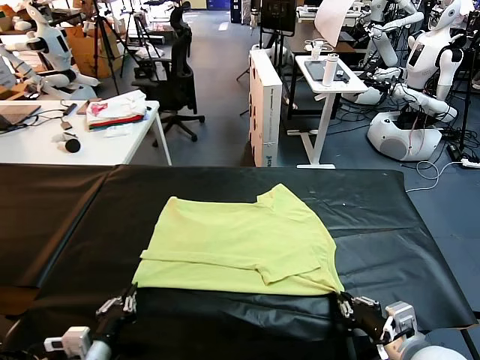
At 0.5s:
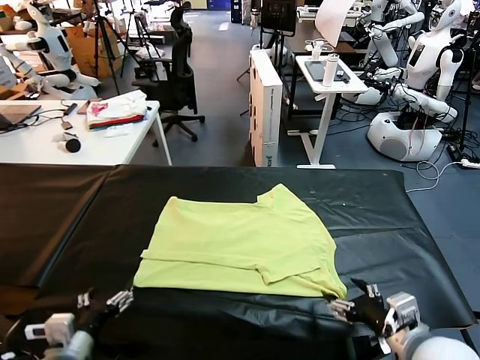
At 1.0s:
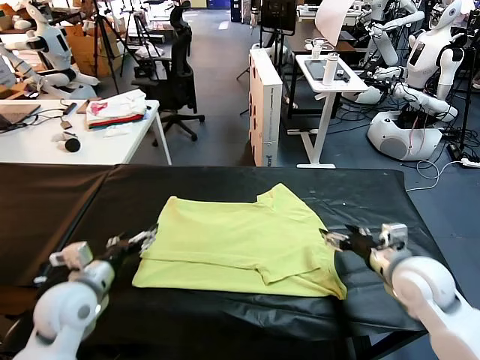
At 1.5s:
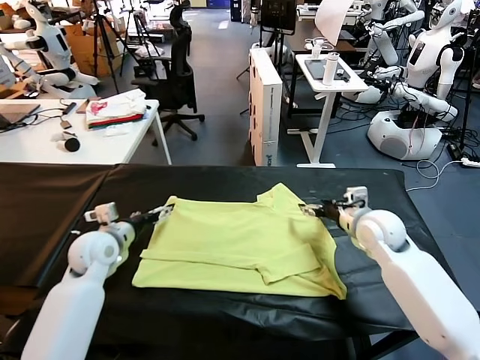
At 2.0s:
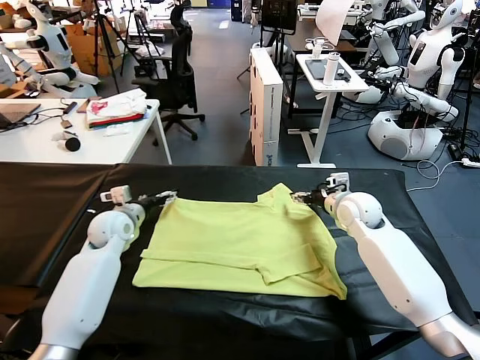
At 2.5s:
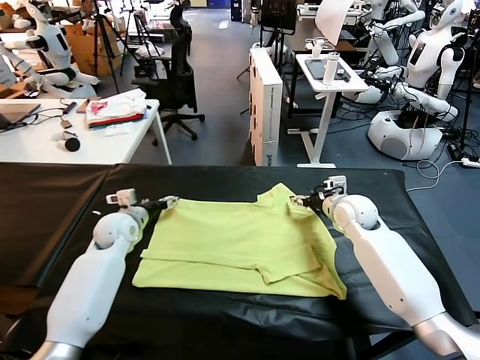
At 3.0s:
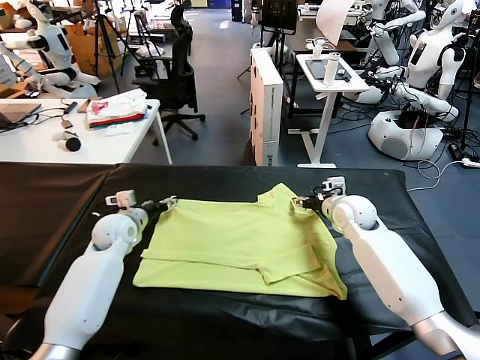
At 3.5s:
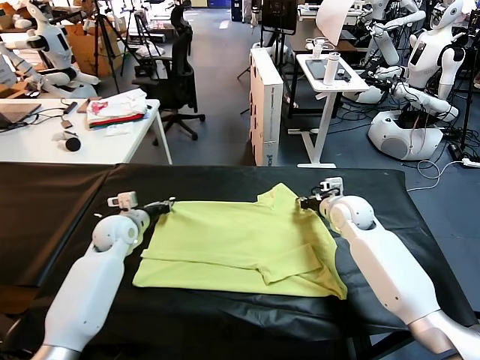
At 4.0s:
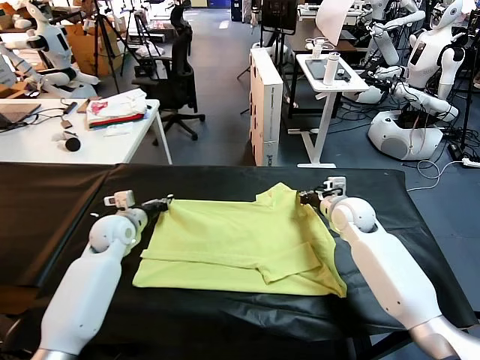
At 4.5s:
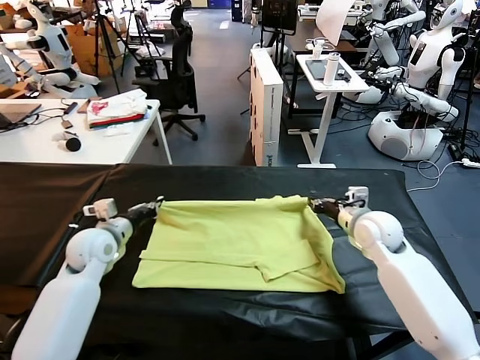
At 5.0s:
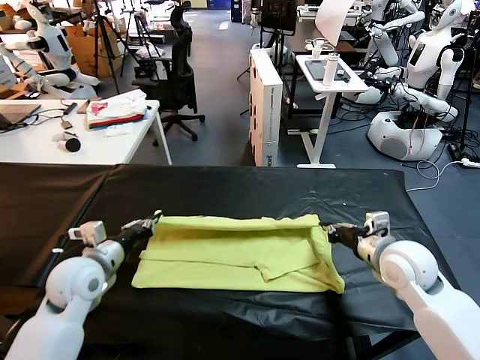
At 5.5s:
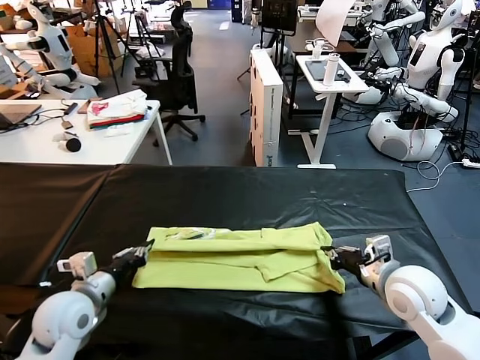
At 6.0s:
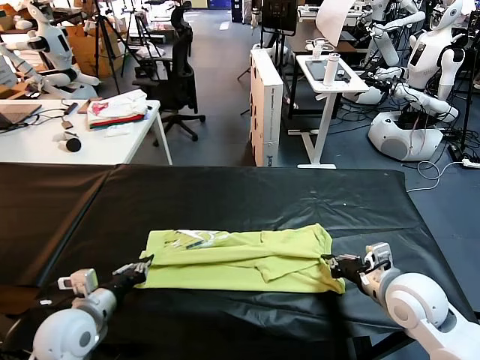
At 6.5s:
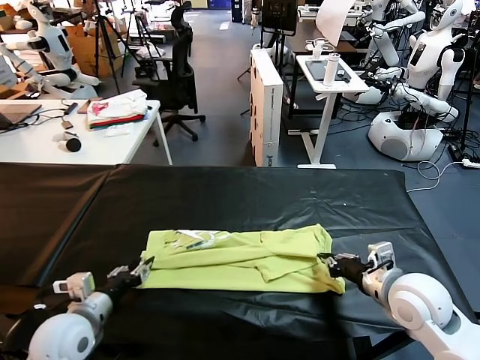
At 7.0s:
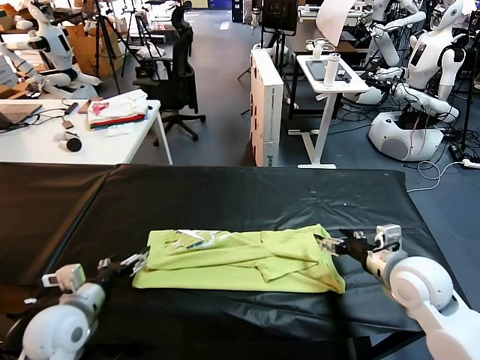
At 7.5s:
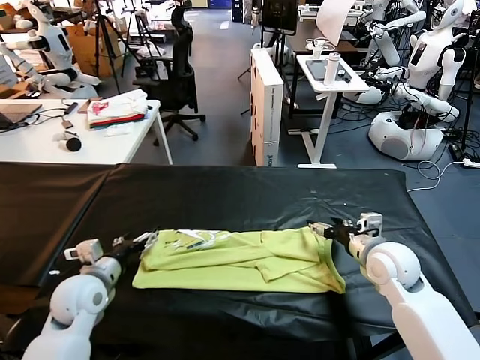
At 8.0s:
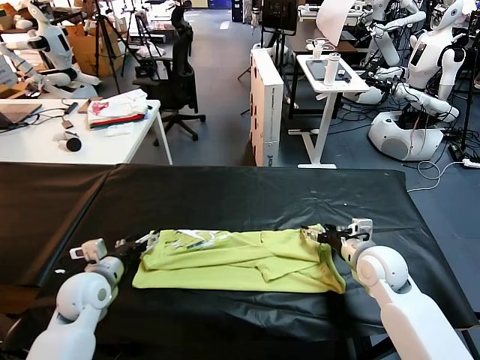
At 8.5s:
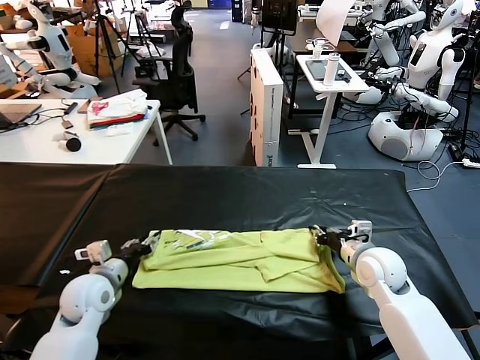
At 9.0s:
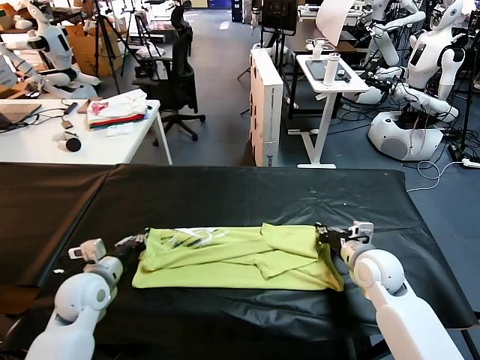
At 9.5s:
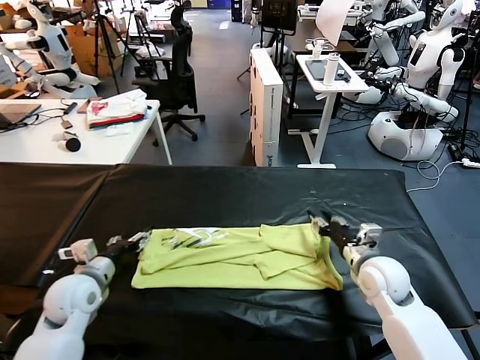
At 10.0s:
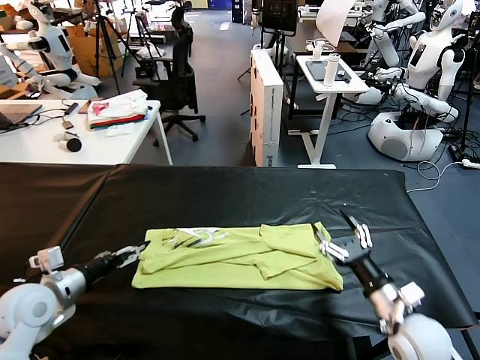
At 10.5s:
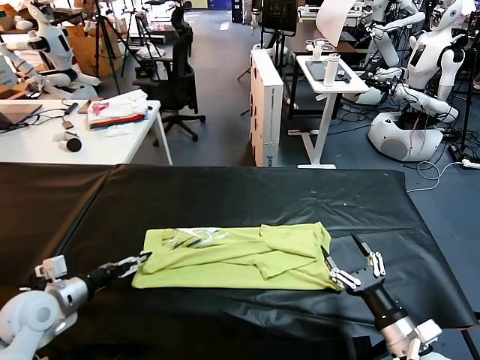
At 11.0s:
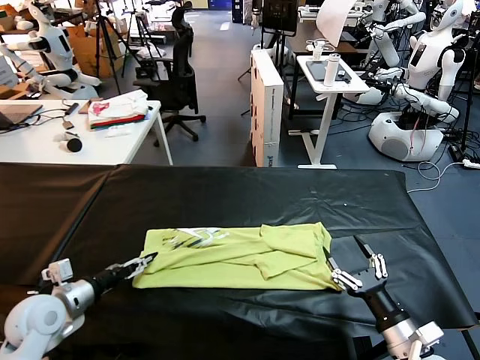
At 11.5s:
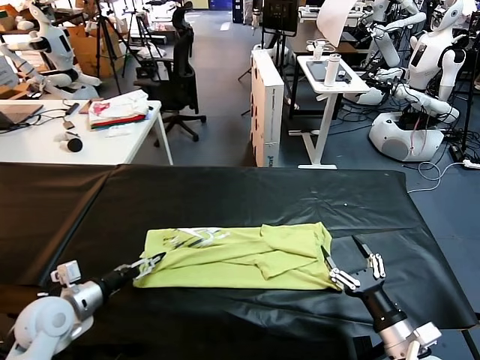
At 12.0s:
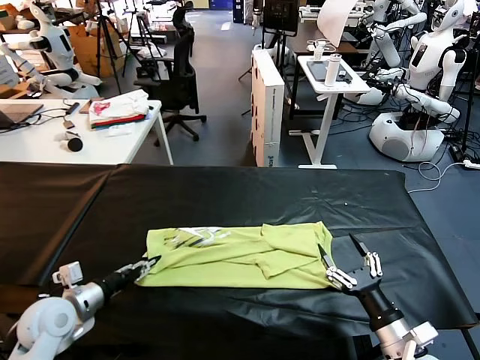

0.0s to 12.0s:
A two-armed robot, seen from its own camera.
Task of the whole recording: fold and organize the clothes.
Step, 0.5s to 3.5s: use both grippers simultaneously to clamp the upper edge of the clothing fabric.
Step, 4.0s to 6.5s: use both grippers to drag the upper edge of the fabric backward and fold it over the lower edge.
Step, 7.0s to 12.0s: use the left gripper to clamp the left edge of the fabric.
0.0s to 2.0s: Both grippers move forward, about 35 cm. The left gripper opens.
2.0s to 4.0s: The right gripper closes up; the left gripper closes its fingers.
4.0s to 6.0s: Both grippers travel together backward, approximately 20 cm.
6.0s to 8.0s: The right gripper is displaced forward and downward by about 10 cm, and opens up, while the left gripper is displaced forward by approximately 10 cm, and opens up.
8.0s to 10.0s: The right gripper shifts roughly 15 cm backward, and closes and opens again, while the left gripper moves upward, to the left and backward, roughly 10 cm, and closes, then reopens.
10.0s to 12.0s: The left gripper shifts about 5 cm downward, and closes its fingers.

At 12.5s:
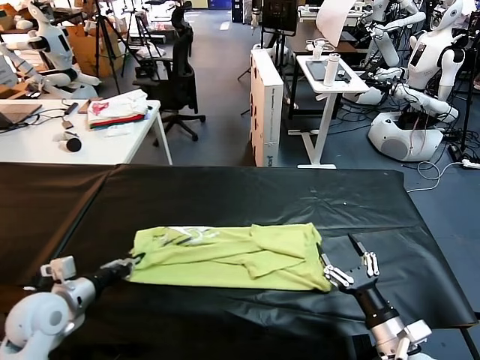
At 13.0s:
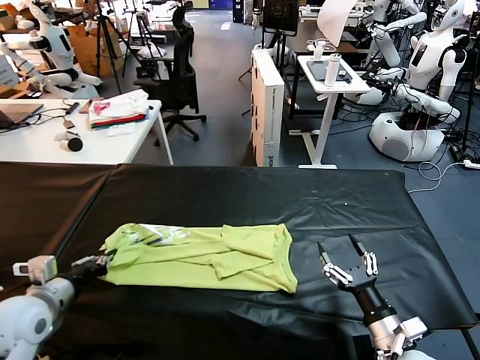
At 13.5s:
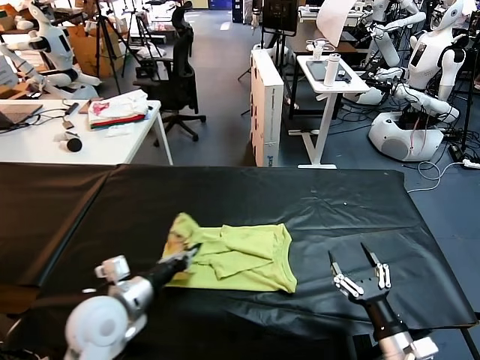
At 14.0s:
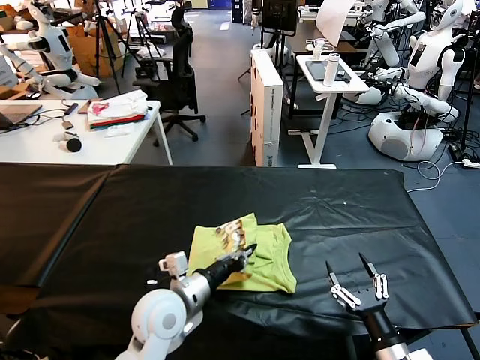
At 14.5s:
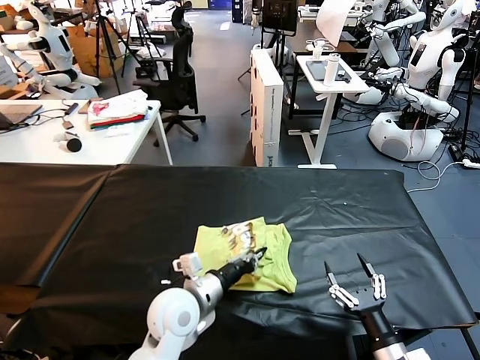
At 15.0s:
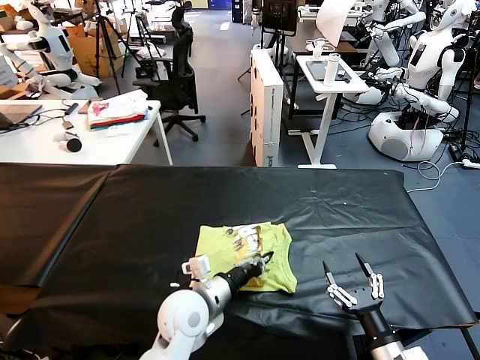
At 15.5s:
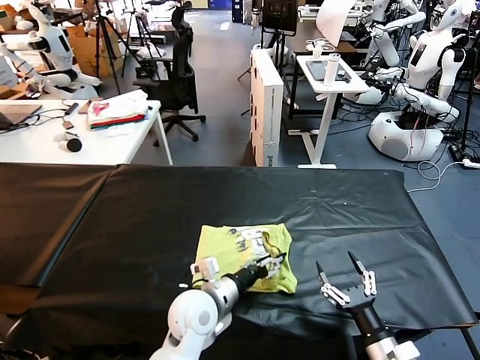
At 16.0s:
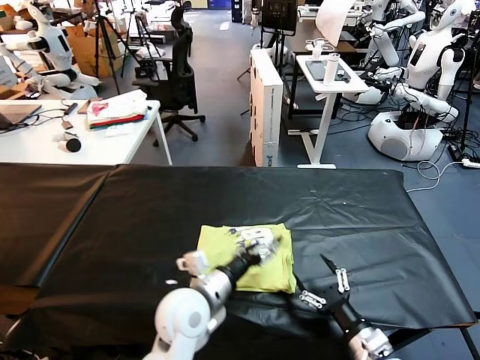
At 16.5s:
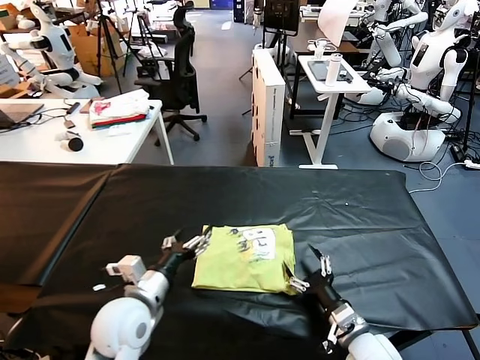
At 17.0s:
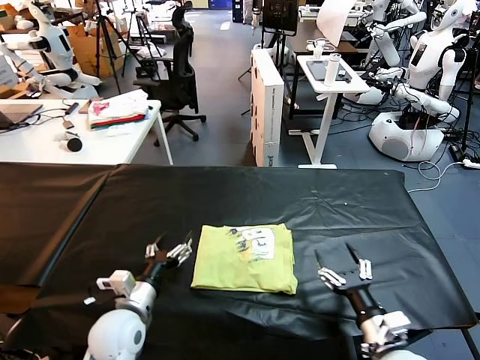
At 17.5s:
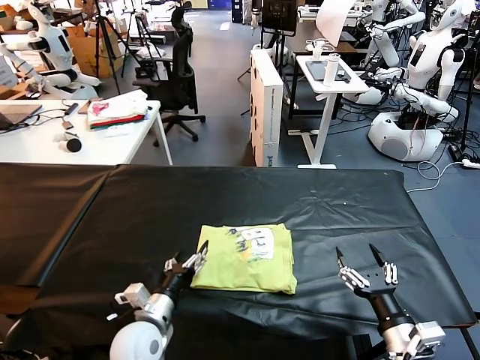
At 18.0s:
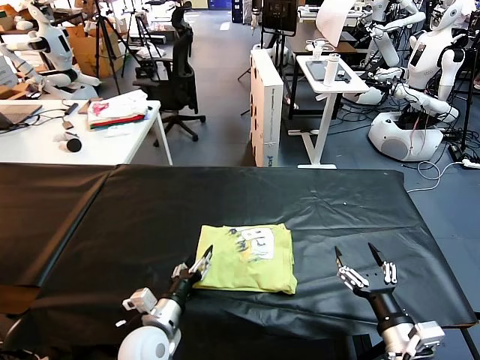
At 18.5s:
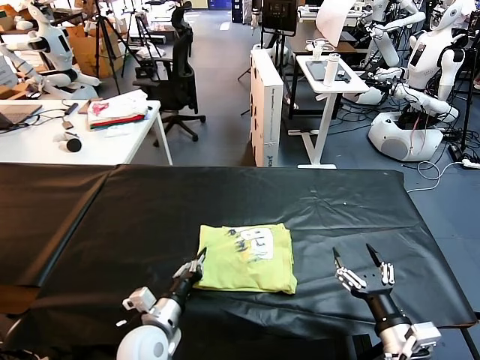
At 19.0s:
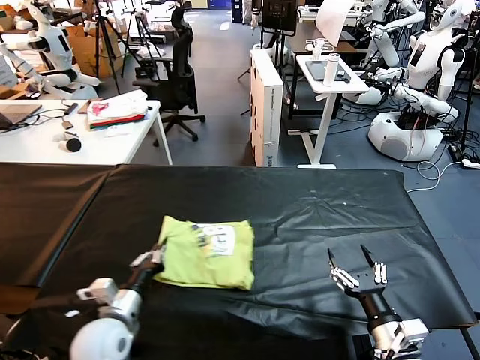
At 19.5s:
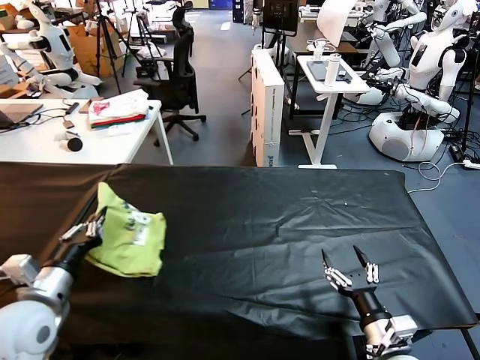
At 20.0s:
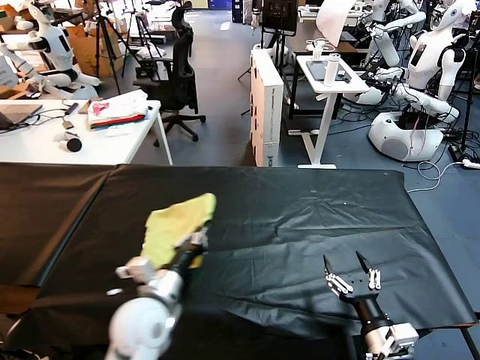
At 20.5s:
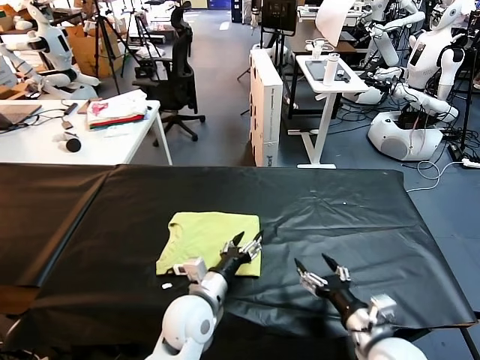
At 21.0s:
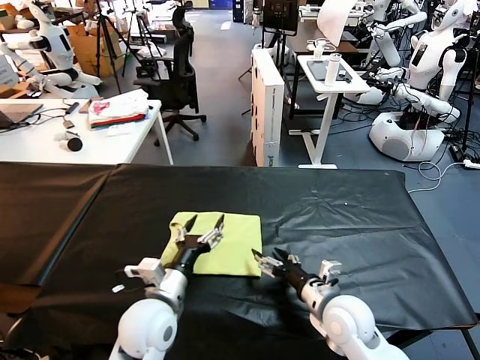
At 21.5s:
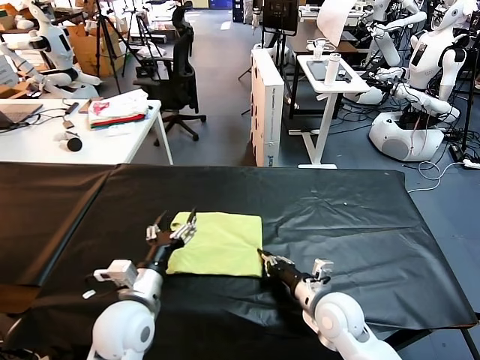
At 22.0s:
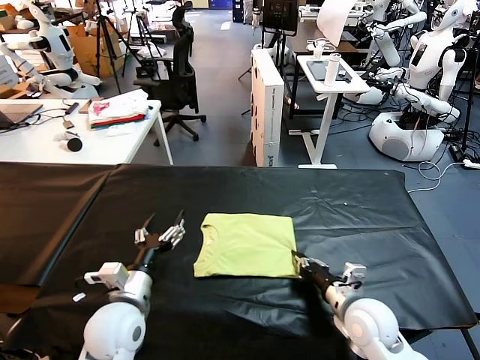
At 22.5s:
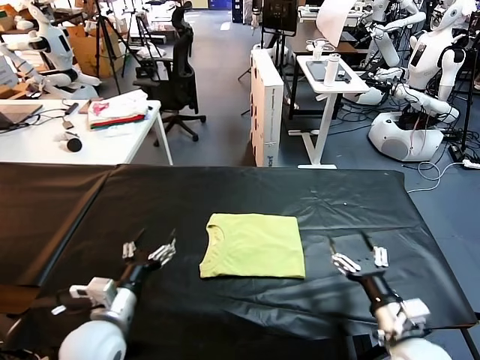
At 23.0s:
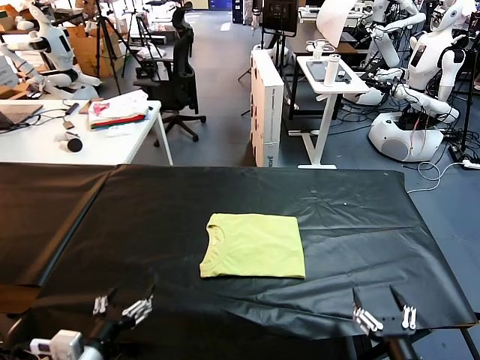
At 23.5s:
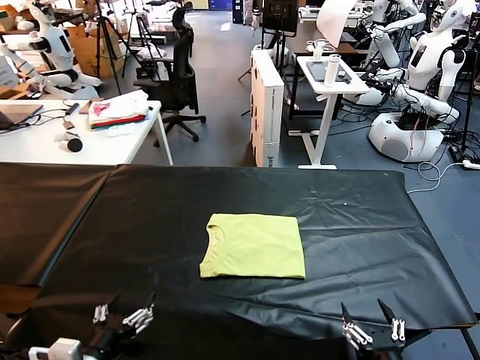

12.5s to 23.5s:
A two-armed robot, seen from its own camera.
Task of the whole recording: fold and organize the clothes.
Step, 12.5s to 15.5s: use the left gripper to drag the left edge of the fabric to the left and folds it over the right edge.
Step, 16.0s to 20.5s: Flip the folded clothes over with left gripper.
Step, 21.0s to 22.0s: Drag the clothes to the center of the table.
12.5s to 14.5s: The left gripper heads to the right, covering some 25 cm.
14.5s to 16.0s: The left gripper opens its fingers.
16.0s to 18.0s: The right gripper heads upward, covering about 5 cm; the left gripper is displaced downward and to the left by roughly 15 cm.
18.0s to 20.0s: The left gripper goes approximately 10 cm upward, goes to the left and returns, about 15 cm each way, and closes.
20.0s to 21.5s: The right gripper shifts roughly 15 cm forward and to the left, and closes up, while the left gripper travels to the right and back again, some 10 cm each way, and opens up.
21.5s to 23.5s: The right gripper is displaced backward by roughly 25 cm, and opens its fingers; the left gripper shifts roughly 15 cm backward and to the left.
